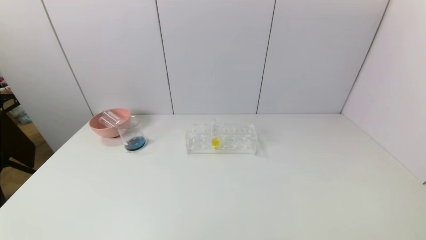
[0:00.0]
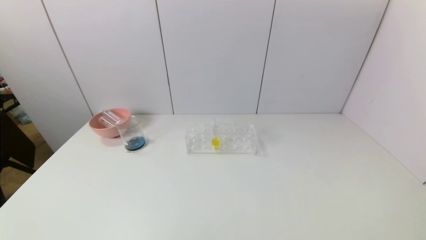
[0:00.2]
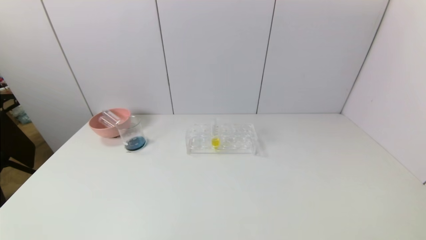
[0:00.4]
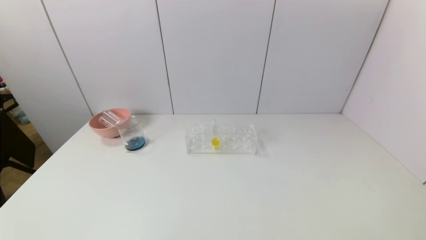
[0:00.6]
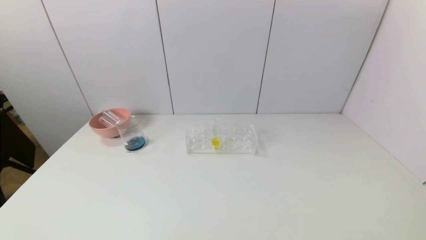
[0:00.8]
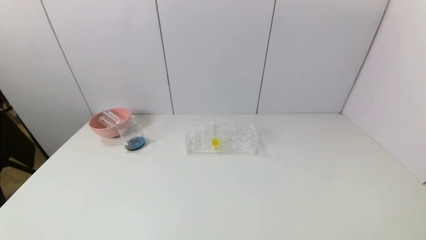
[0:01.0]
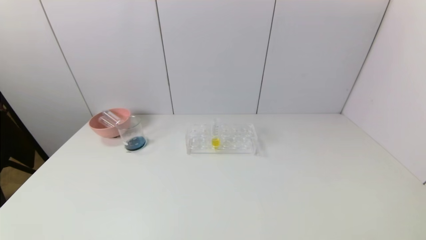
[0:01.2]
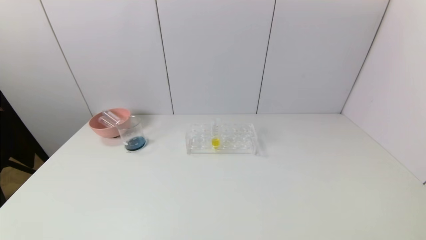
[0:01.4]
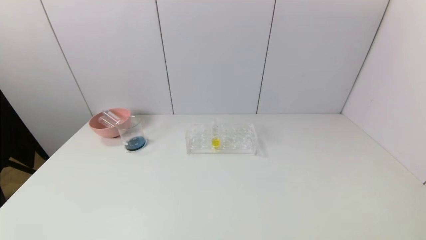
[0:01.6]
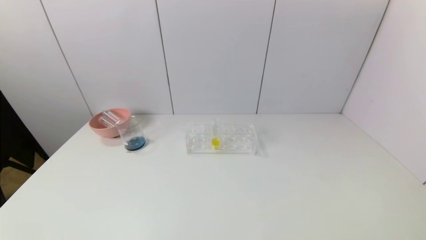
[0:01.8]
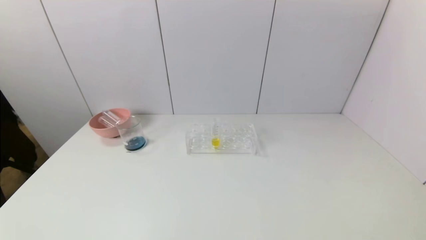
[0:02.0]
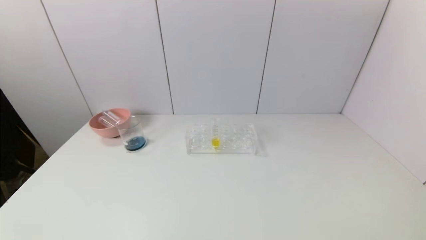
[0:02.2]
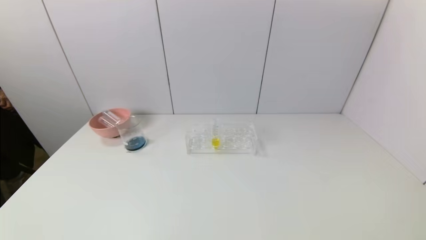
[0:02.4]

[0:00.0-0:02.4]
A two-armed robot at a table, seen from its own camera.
Task of the whole recording: pick up the test tube with red pigment and the test tube with blue pigment by grippers and pour them into the container.
0:00.0 to 0:01.2: The left gripper goes approximately 10 cm downward.
0:01.2 to 0:02.4: Both grippers stay put.

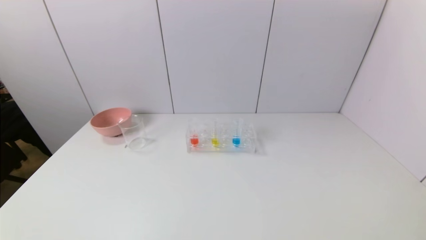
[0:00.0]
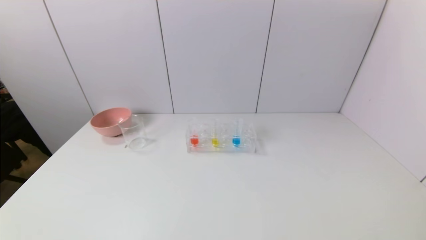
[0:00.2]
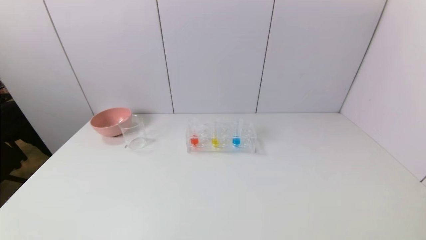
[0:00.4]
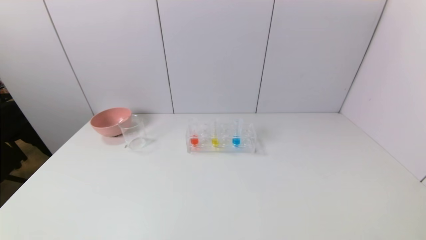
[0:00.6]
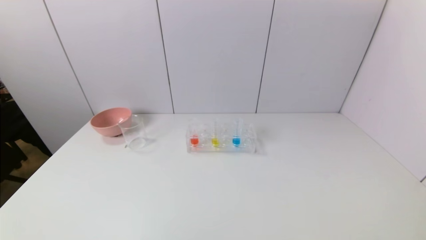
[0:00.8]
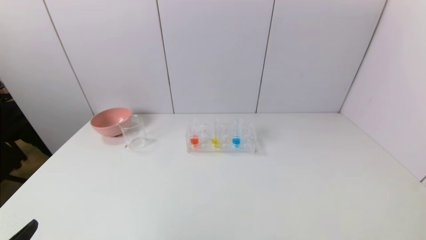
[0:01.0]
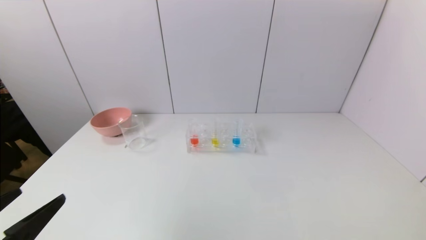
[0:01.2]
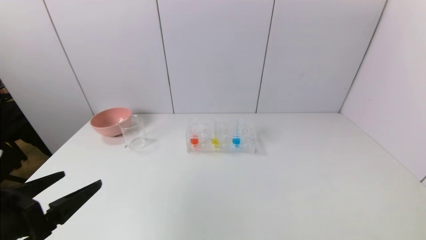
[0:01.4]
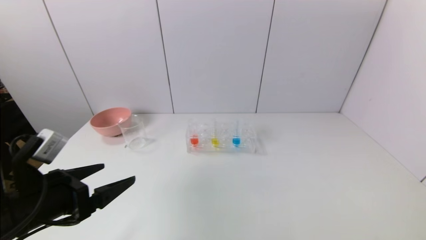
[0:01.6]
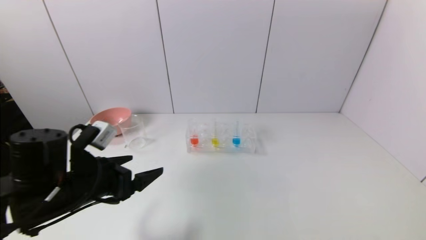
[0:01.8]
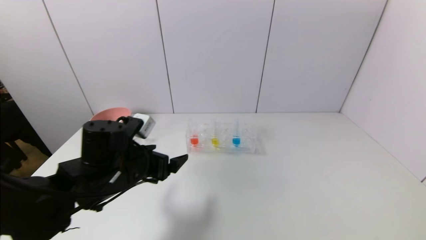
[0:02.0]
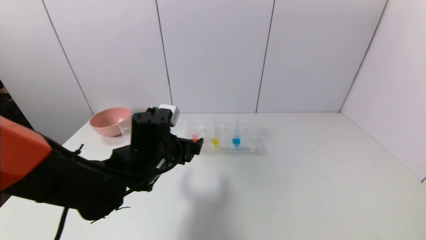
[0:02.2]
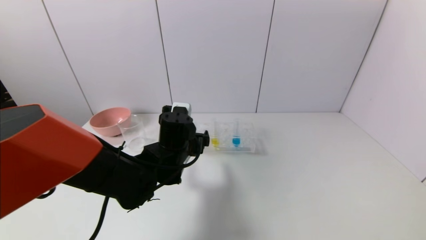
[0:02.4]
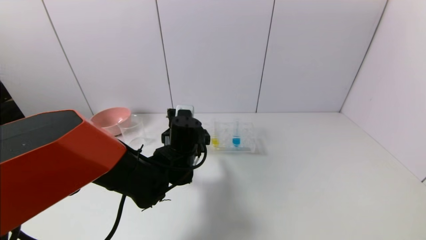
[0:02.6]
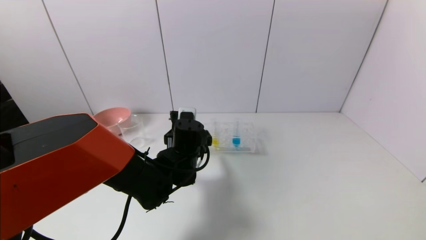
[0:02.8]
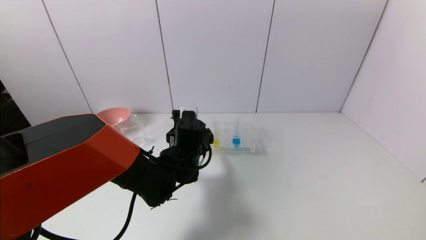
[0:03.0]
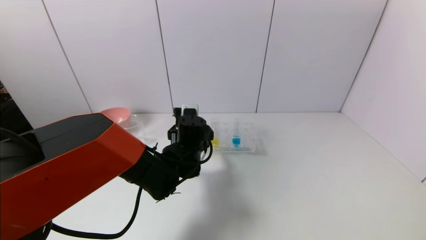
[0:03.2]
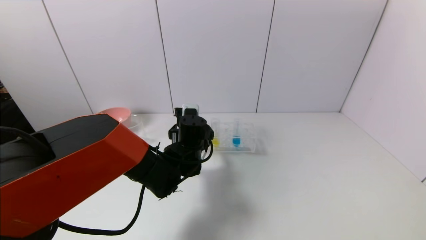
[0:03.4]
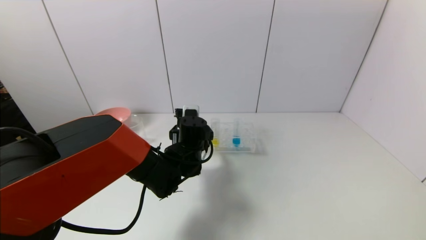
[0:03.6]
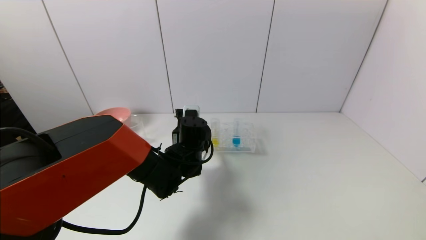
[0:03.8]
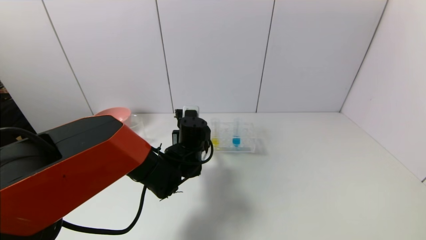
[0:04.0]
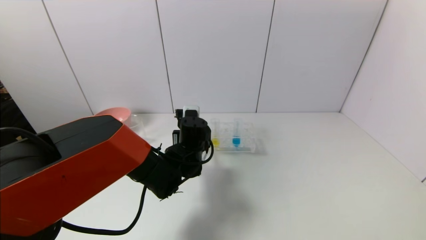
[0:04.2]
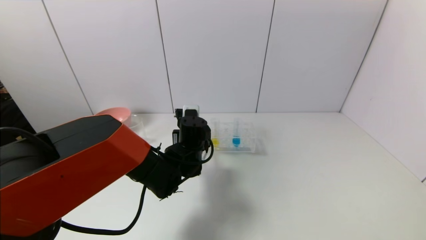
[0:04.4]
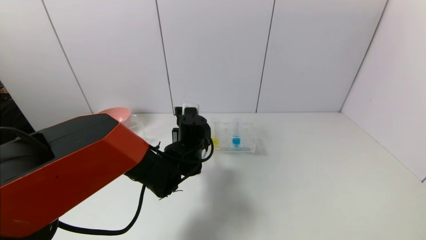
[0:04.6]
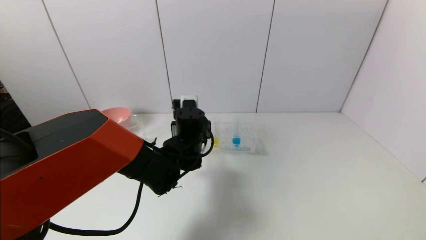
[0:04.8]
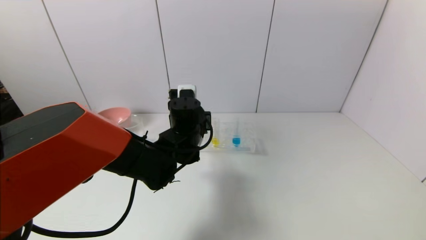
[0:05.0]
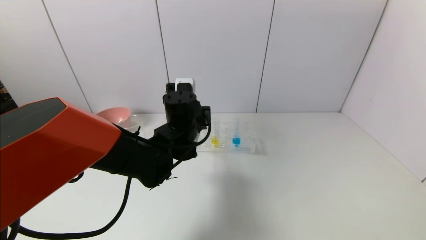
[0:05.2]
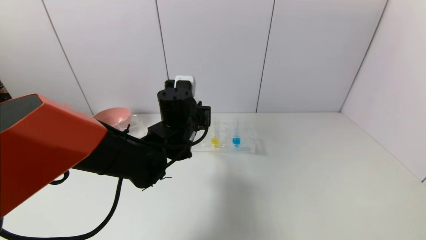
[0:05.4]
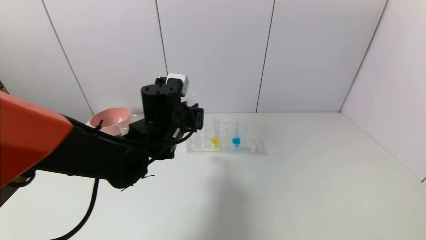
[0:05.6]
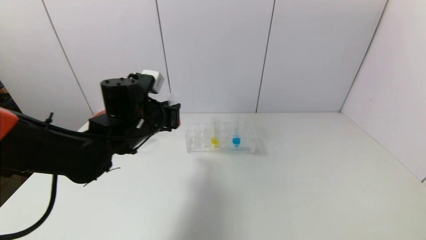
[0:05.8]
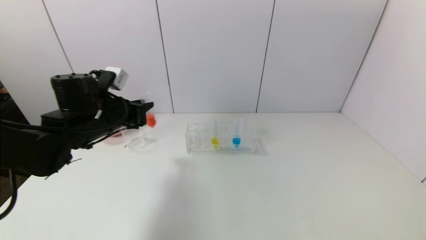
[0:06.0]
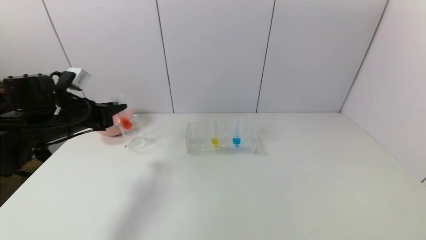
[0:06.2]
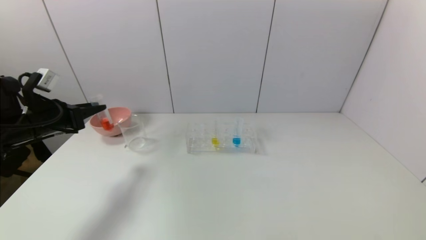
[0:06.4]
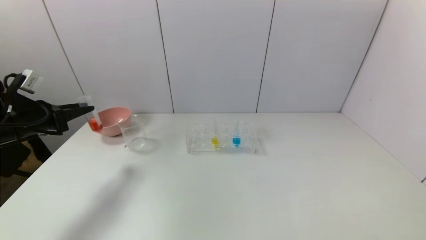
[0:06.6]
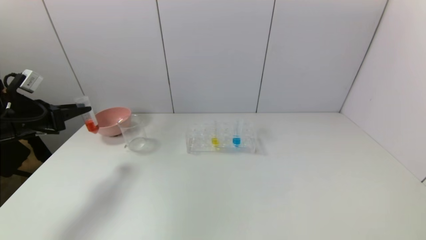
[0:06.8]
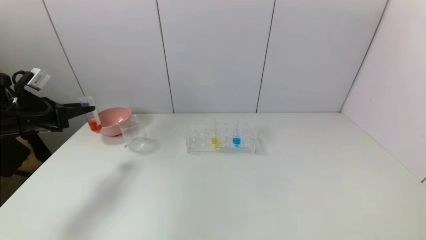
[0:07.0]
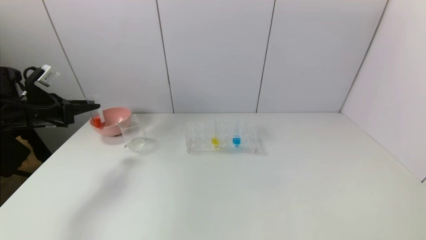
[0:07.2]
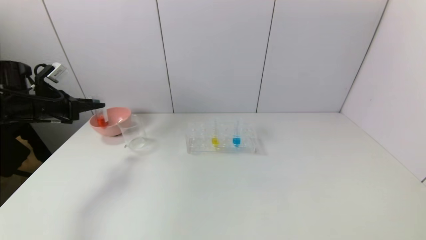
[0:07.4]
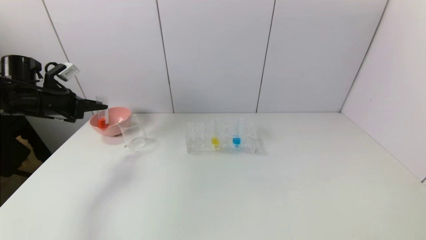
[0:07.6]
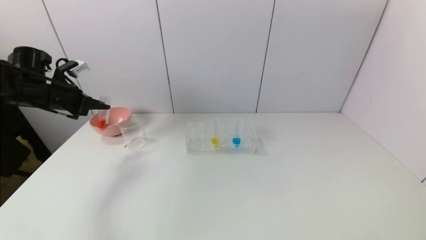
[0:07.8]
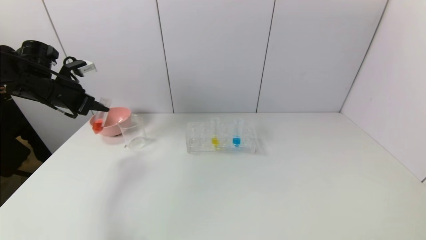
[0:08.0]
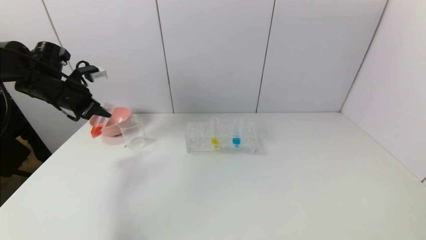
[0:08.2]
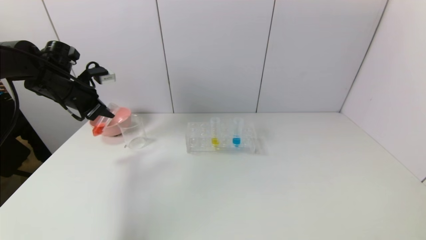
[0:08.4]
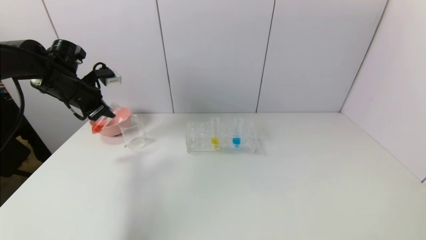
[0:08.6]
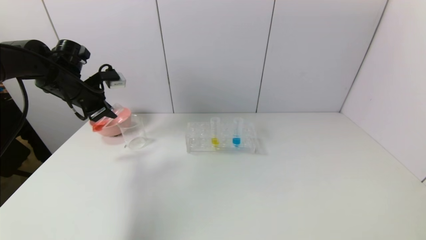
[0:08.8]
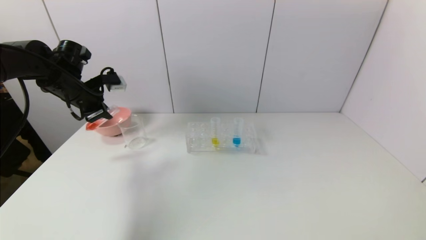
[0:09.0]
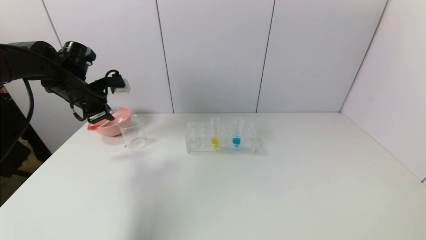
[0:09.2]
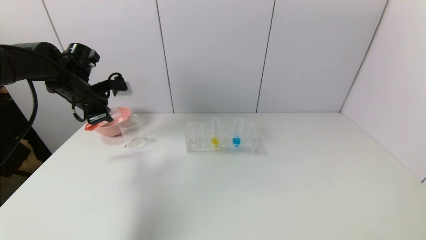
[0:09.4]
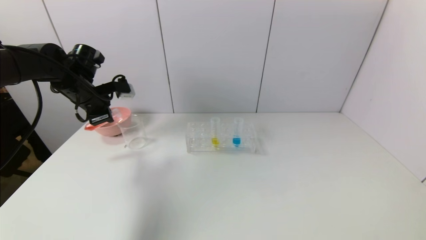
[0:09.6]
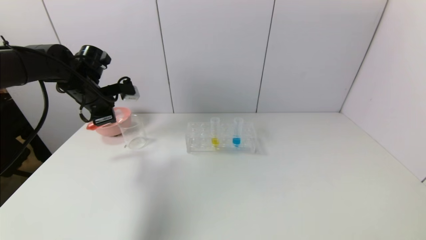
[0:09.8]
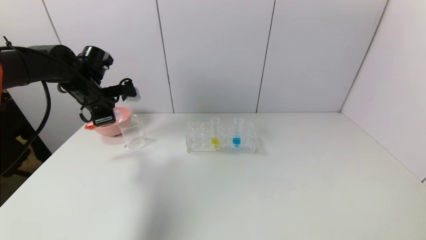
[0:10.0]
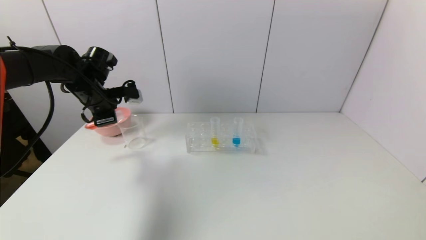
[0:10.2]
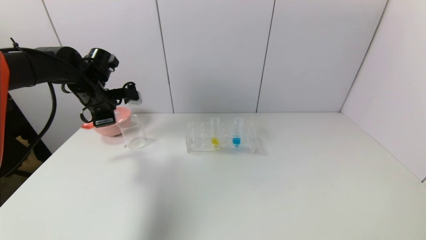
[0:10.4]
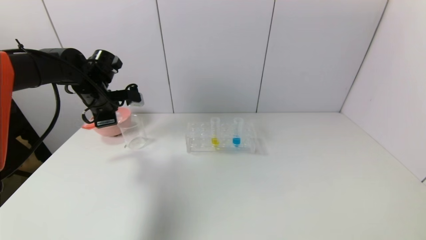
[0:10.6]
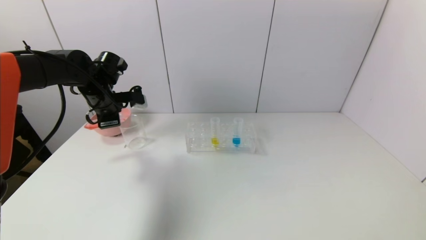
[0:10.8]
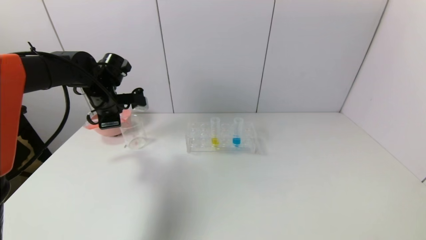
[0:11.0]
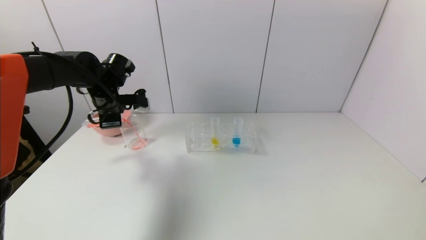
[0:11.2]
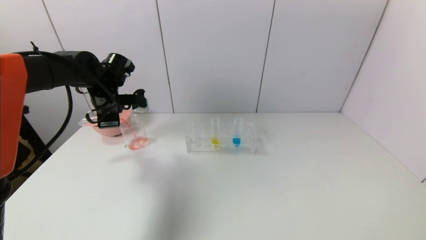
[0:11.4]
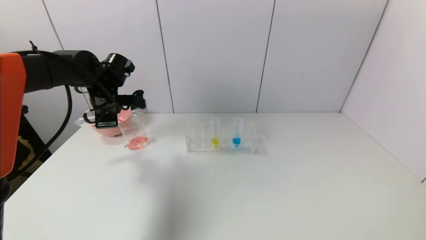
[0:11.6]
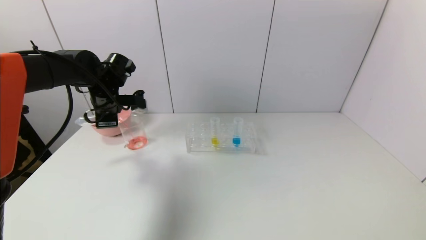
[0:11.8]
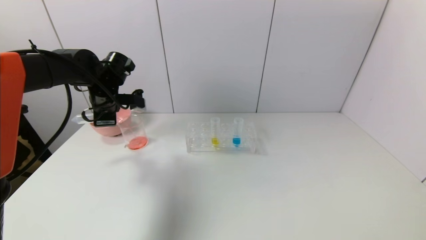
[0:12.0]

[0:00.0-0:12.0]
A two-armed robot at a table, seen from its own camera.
Task of the whole recording: pick up the test tube with red pigment and the test tube with blue pigment by grippers and pour them into the container.
Step, 0:00.0 to 0:04.2: Grasp the red reagent with the left gripper.
0:00.0 to 0:01.6: The left gripper goes approximately 20 cm forward and upward.
0:01.6 to 0:03.0: The left gripper moves to the right and forward, some 25 cm.
0:03.0 to 0:04.4: The left gripper closes.
0:04.4 to 0:06.0: The left gripper moves to the left and upward, roughly 20 cm.
0:06.0 to 0:07.6: The left gripper goes some 15 cm to the left.
0:07.6 to 0:09.0: The left gripper travels to the right by about 5 cm.
0:10.4 to 0:12.0: The grippers move only a little.

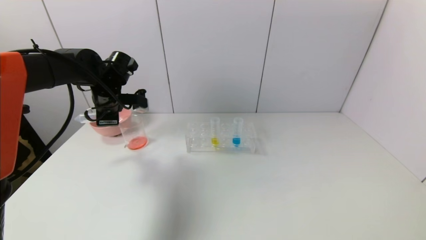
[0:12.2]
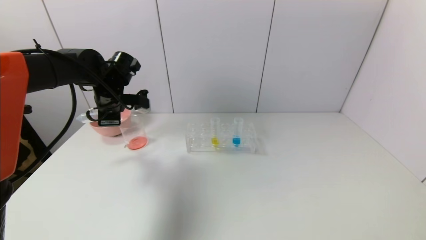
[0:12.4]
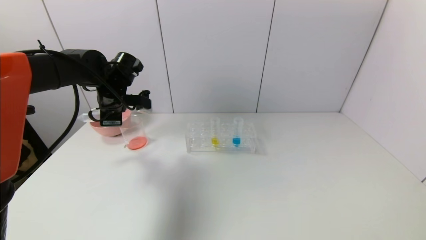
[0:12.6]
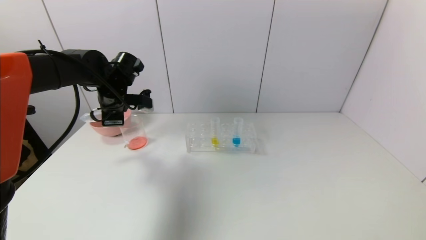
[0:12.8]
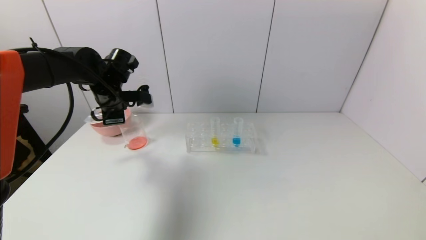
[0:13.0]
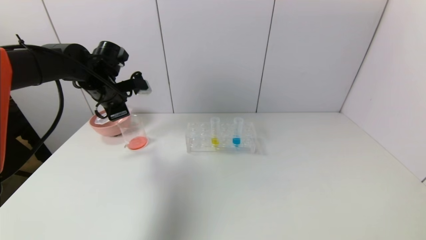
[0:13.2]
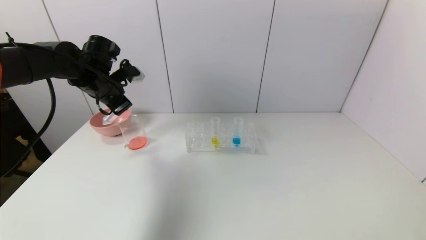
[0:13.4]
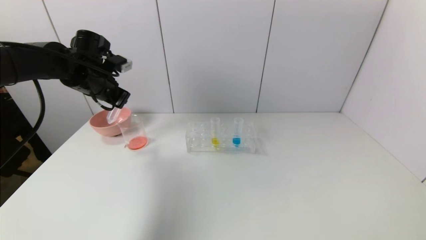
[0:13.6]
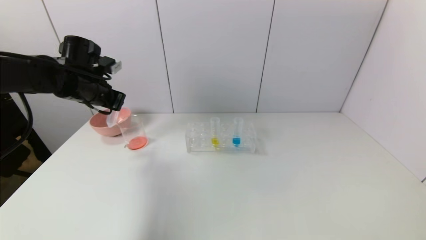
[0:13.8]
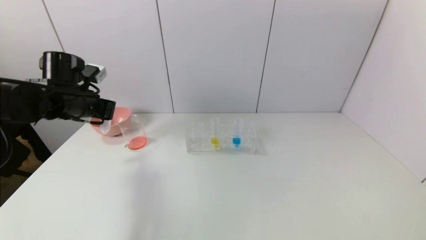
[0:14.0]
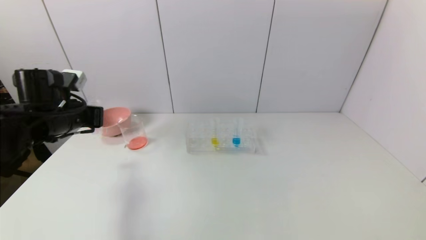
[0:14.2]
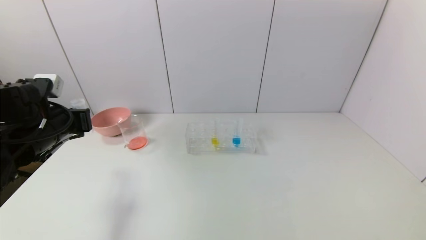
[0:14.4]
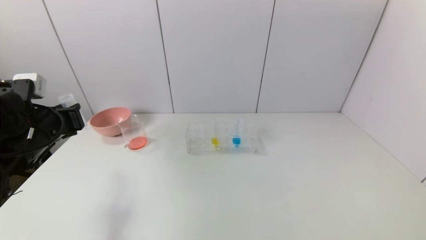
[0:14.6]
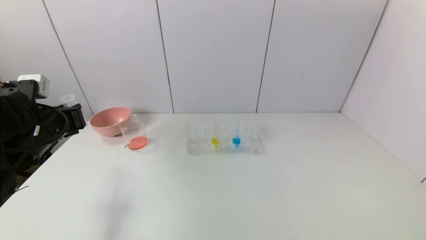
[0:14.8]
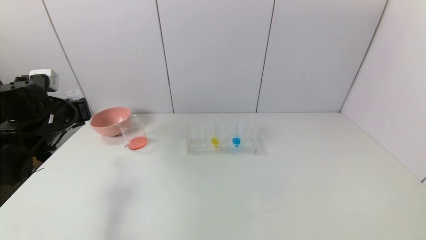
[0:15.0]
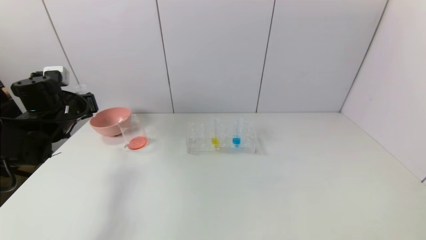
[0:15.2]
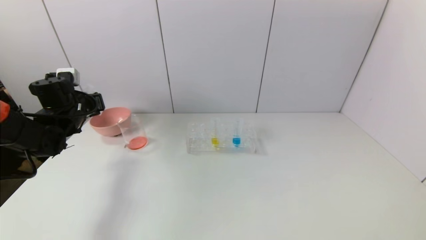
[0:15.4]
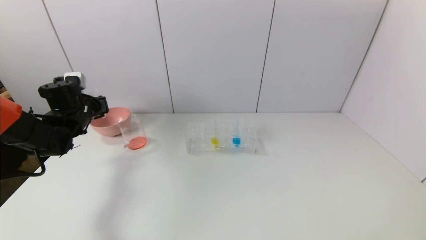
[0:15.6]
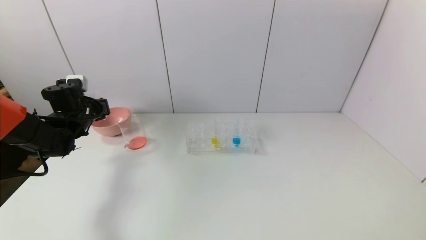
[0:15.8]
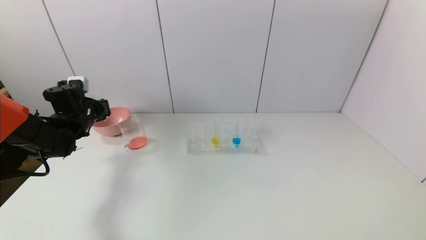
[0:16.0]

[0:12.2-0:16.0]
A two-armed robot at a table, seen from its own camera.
Task of the whole recording: pick up the test tube with red pigment and the test tube with blue pigment by grippers and pour them into the container.
0:13.4 to 0:14.8: The left gripper heads backward, to the left and downward, covering about 15 cm.
0:14.8 to 0:16.0: The left gripper goes about 15 cm forward.
